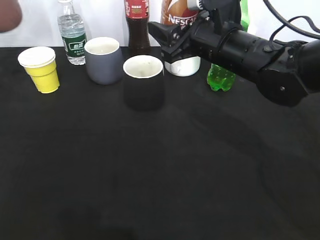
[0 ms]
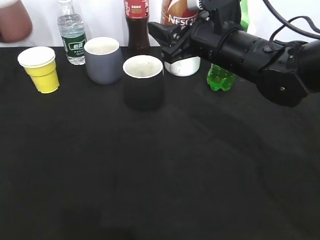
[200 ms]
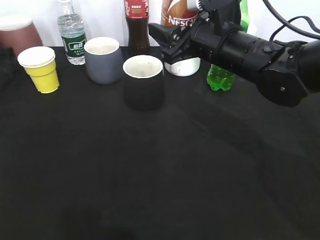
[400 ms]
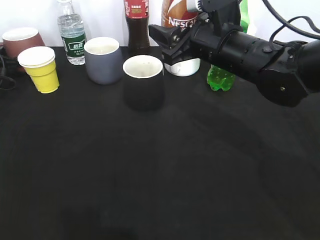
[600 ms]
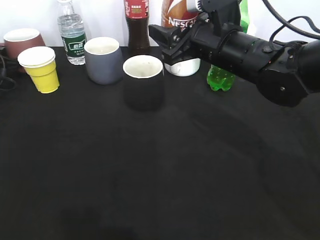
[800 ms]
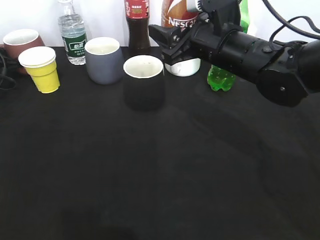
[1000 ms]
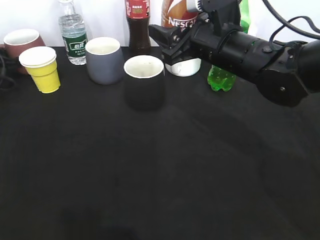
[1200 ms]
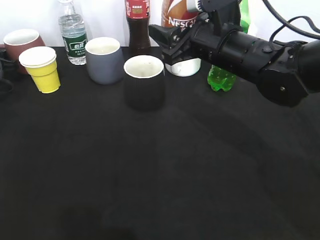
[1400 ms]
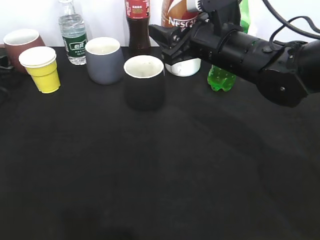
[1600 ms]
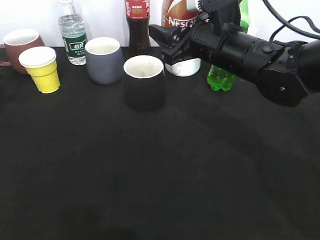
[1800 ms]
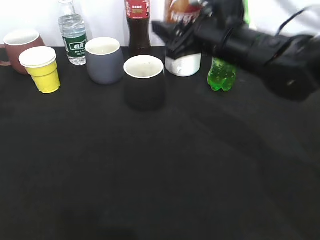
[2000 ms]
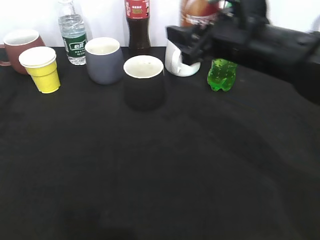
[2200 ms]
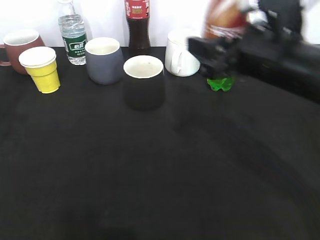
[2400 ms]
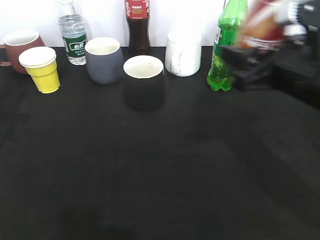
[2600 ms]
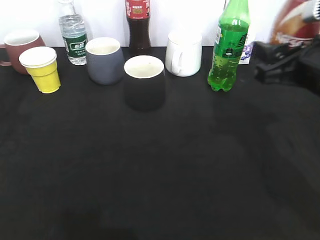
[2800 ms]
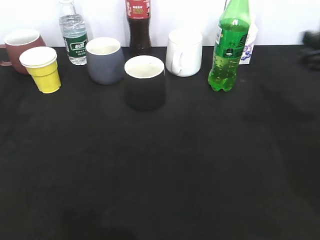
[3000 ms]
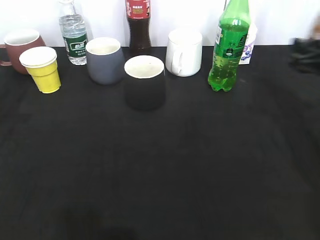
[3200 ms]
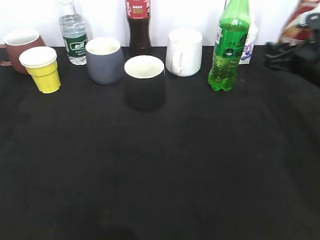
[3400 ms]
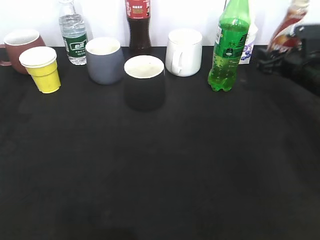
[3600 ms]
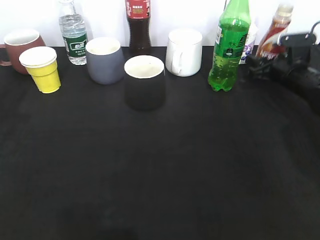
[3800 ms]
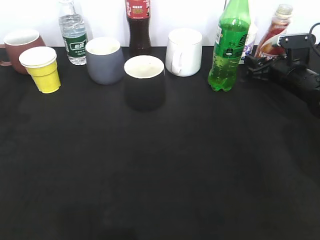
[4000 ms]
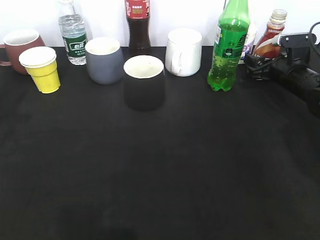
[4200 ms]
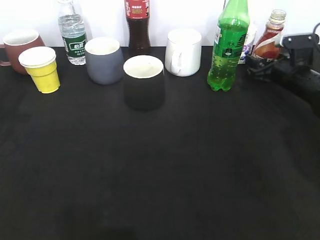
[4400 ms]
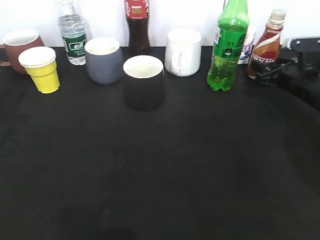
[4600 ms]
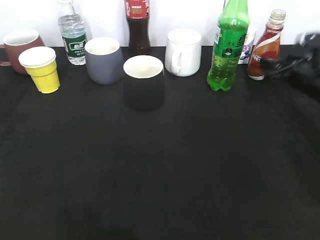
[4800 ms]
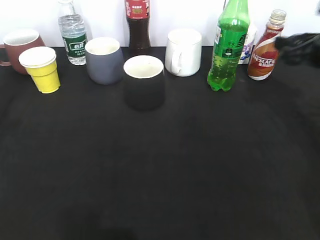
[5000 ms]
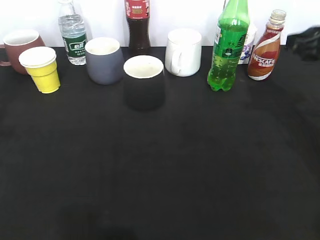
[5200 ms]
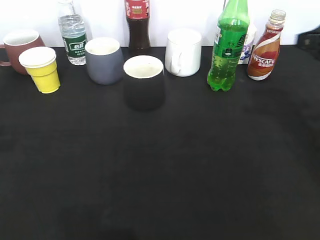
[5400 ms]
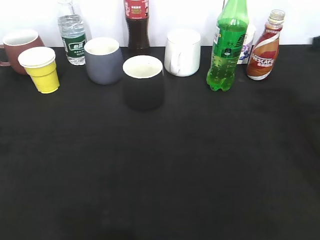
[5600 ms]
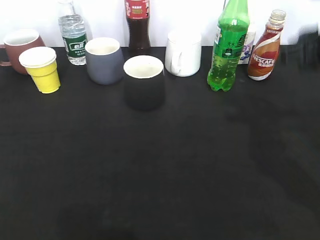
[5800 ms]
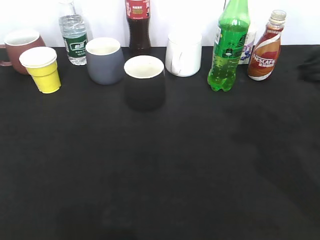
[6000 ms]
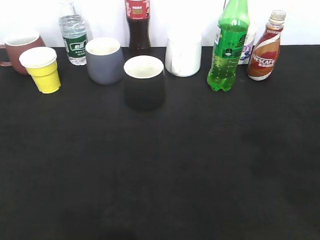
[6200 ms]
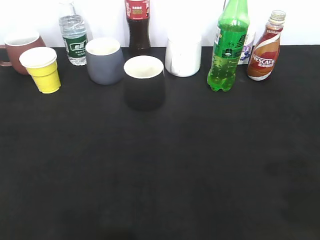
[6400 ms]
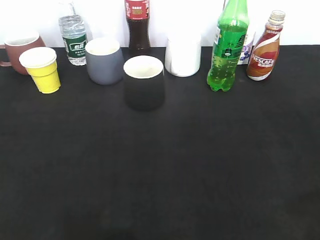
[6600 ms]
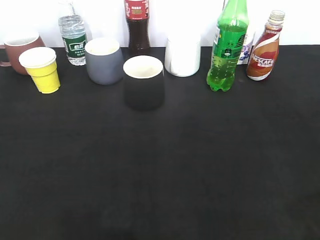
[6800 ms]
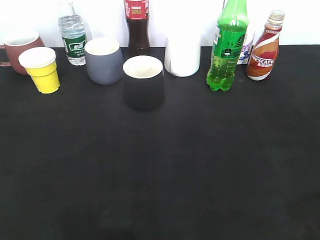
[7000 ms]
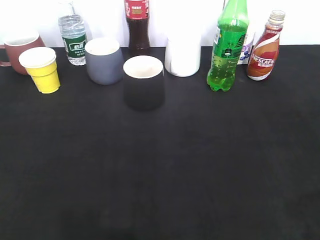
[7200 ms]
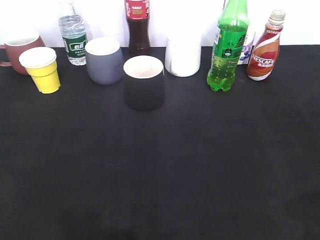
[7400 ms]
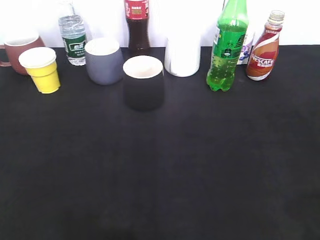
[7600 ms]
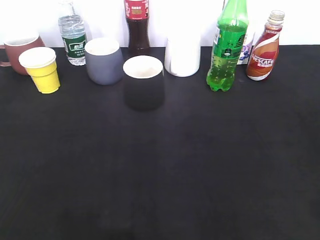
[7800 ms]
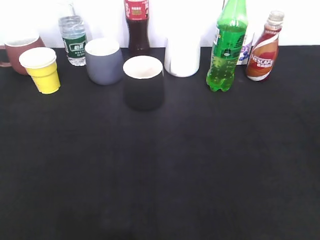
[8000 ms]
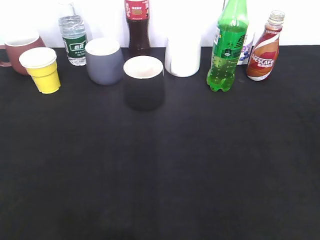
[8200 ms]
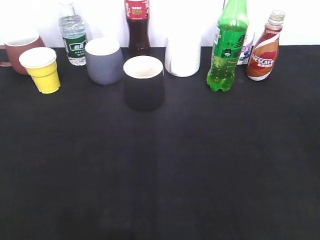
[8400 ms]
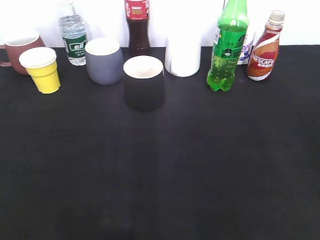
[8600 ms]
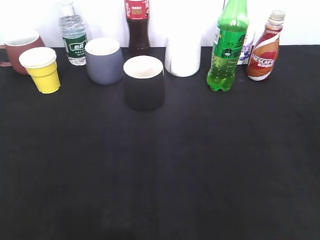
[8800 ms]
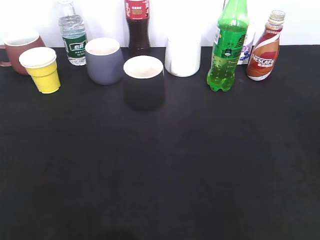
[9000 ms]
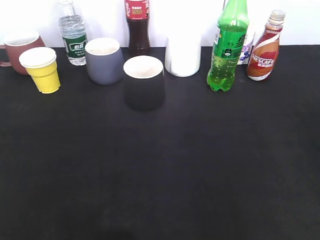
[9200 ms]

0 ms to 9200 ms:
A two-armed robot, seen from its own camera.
Step, 1400 ms to 4200 ms: Place the coffee bottle on the table with right gripper.
0 ms to 1600 ms: The left gripper travels downward by roughly 10 cm, and opens up.
1600 ms to 3000 ms: The right gripper travels to the right and backward by approximately 20 cm. The left gripper moves backward, upward and to the right, roughly 20 cm.
3000 ms to 4600 ms: The right gripper travels forward and downward by roughly 20 cm.
4600 ms to 6200 ms: The grippers both shift backward and upward by about 30 cm. The right gripper closes and opens again, while the left gripper opens up.
6200 ms to 7600 ms: The right gripper goes roughly 10 cm backward.

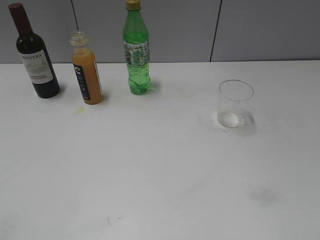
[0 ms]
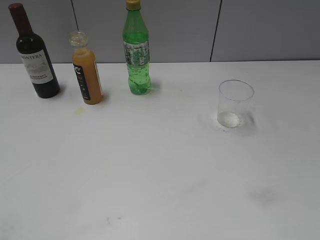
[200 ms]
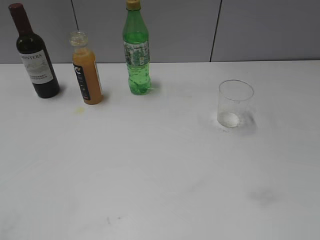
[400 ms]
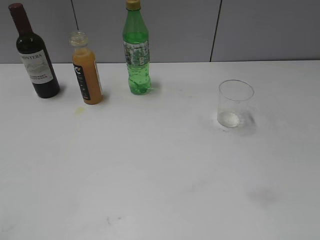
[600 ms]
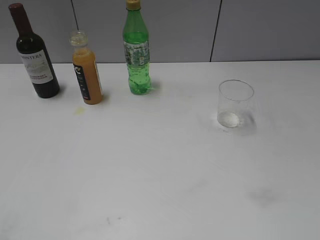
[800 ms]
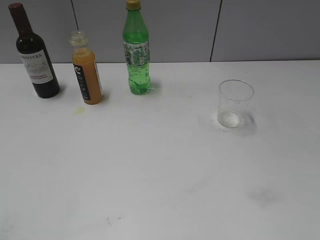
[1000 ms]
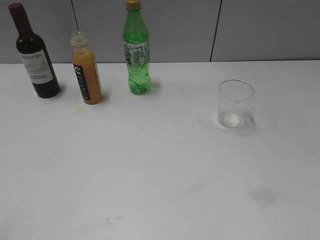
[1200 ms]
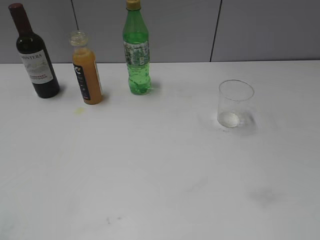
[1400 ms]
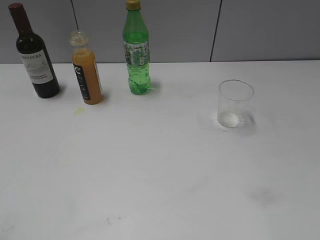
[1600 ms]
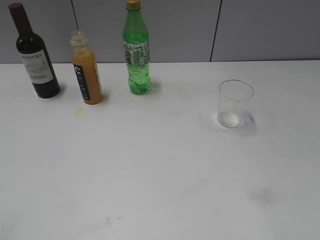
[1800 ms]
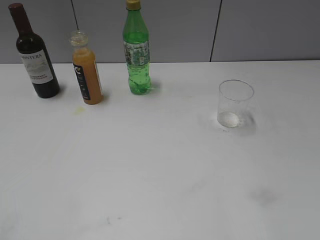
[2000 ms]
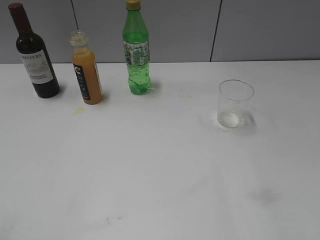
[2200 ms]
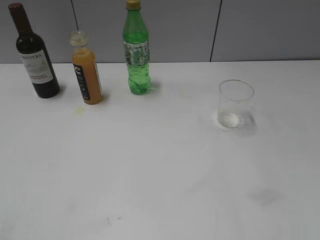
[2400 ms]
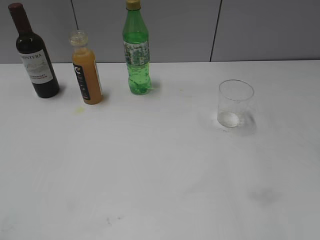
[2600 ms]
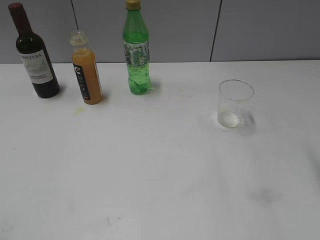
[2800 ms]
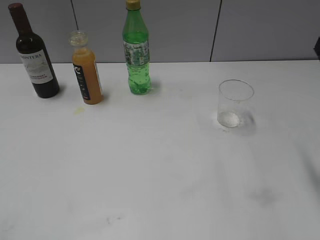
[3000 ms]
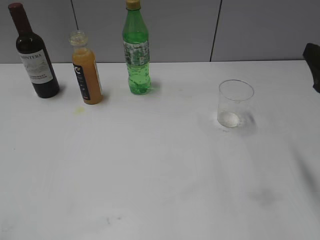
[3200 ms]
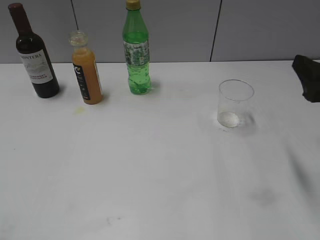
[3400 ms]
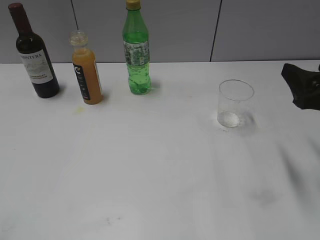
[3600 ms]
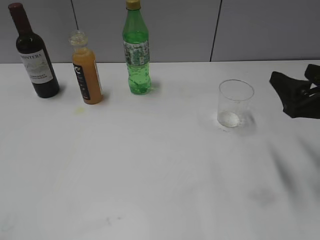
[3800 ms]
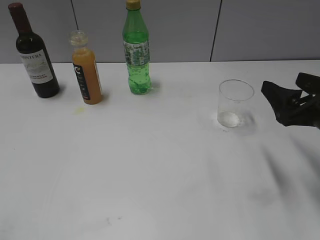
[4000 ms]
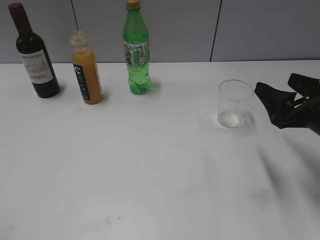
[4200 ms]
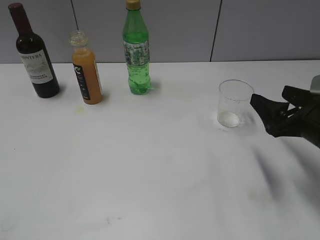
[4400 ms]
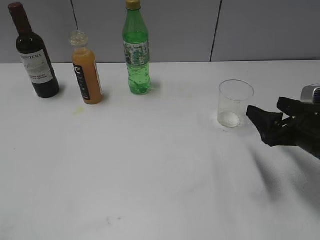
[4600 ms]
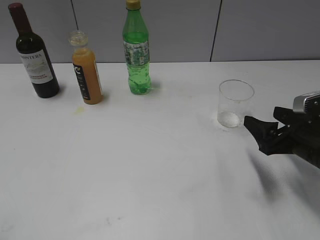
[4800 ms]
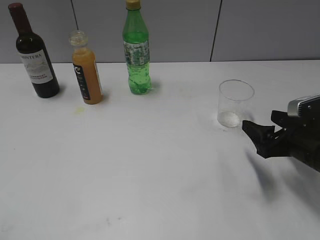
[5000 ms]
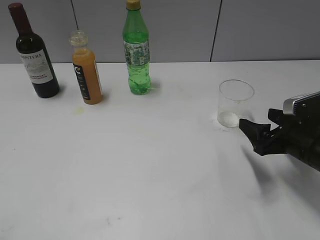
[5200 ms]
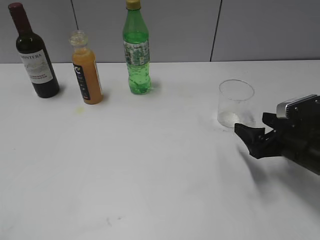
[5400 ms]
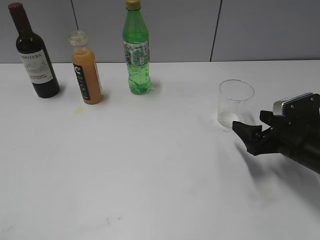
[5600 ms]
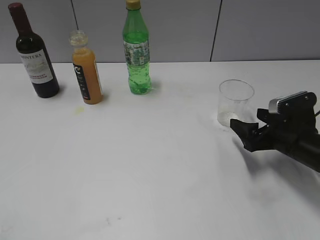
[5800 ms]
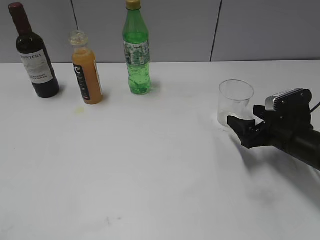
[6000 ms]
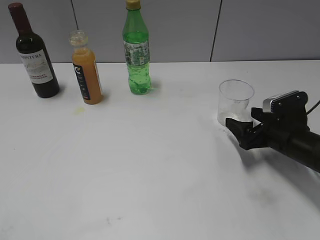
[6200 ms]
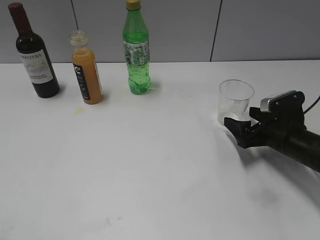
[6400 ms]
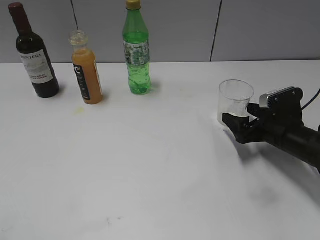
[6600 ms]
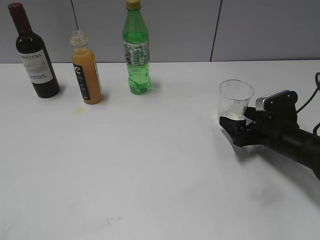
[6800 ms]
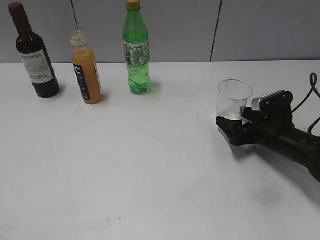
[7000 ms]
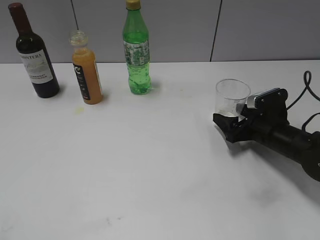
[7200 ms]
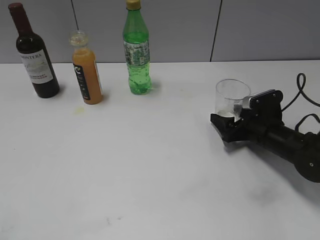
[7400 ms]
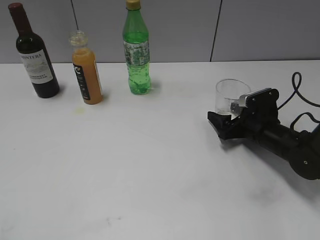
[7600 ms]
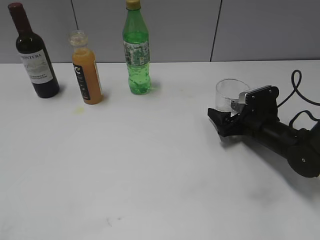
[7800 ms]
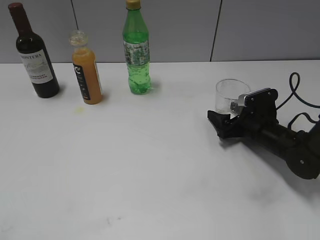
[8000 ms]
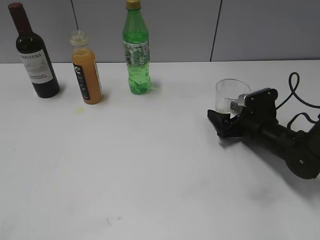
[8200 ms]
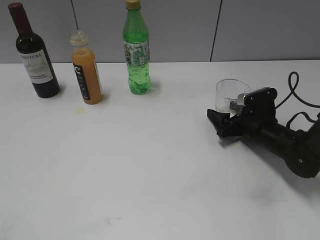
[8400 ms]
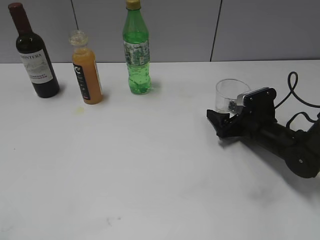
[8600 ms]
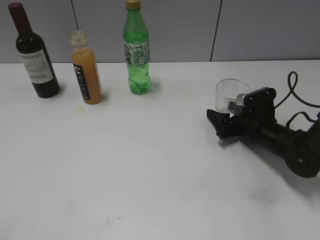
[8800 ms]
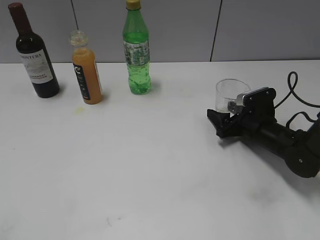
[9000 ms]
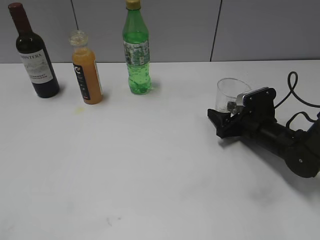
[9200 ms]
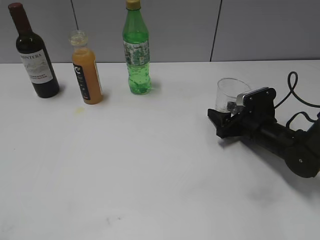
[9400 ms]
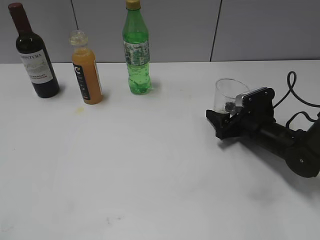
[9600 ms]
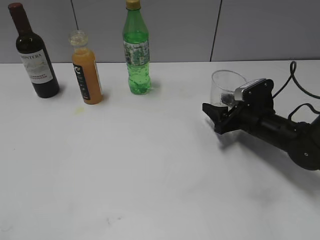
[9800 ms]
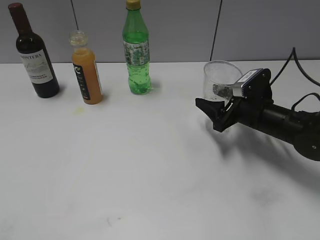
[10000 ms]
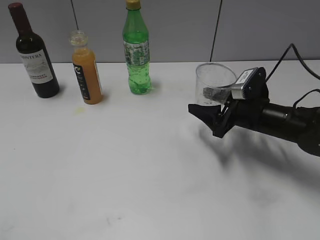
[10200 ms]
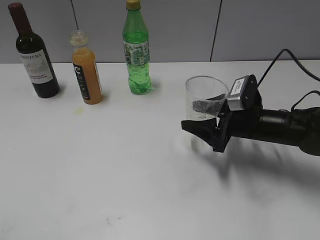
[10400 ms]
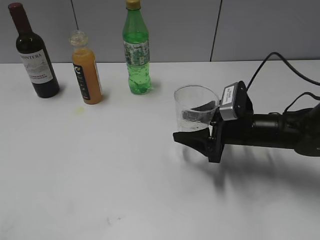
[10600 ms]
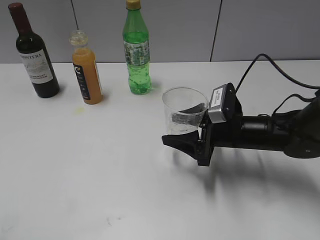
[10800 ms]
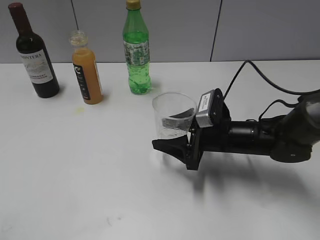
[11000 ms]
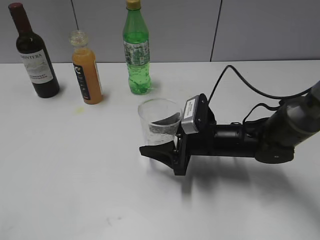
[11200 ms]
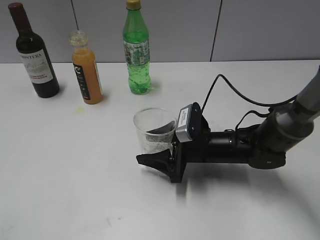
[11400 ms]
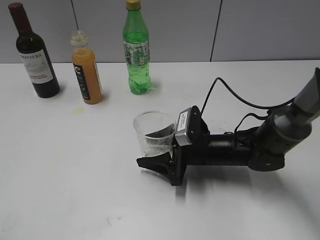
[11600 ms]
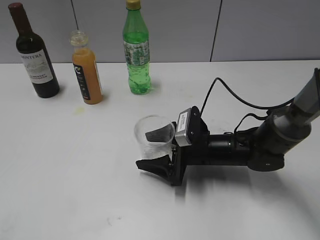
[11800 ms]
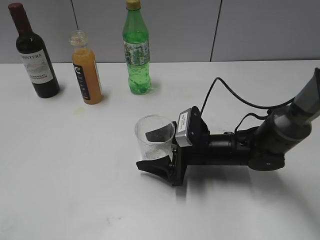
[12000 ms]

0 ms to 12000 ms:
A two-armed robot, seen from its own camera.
Step, 3000 ms to 9400 ms: Grasp the transparent cup with right gripper.
3000 ms to 4400 ms: The right gripper is displaced downward by some 10 cm.
4400 ms to 6000 ms: The right gripper heads downward and forward, covering some 10 cm.
6000 ms to 7600 ms: The right gripper moves forward, approximately 5 cm.
7600 ms to 9000 ms: The right gripper closes.
9000 ms to 10400 ms: The right gripper is displaced upward by approximately 5 cm.
10400 ms to 12000 ms: The right gripper is displaced to the left and downward by about 10 cm, and opens up.

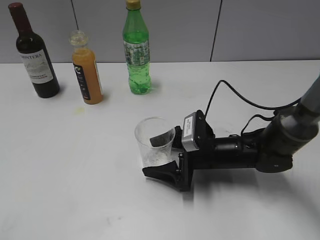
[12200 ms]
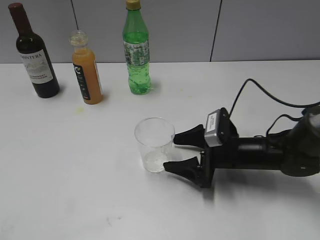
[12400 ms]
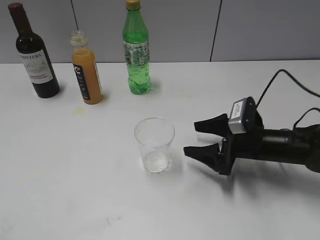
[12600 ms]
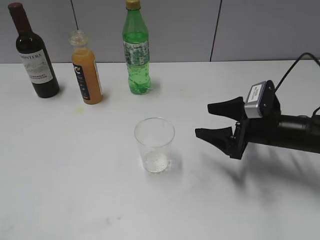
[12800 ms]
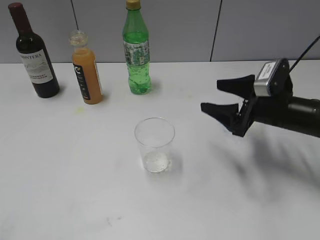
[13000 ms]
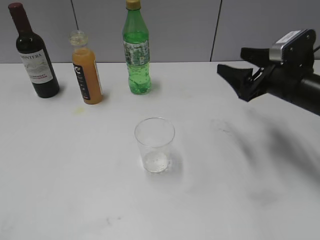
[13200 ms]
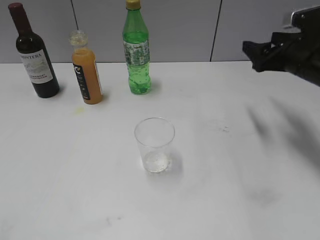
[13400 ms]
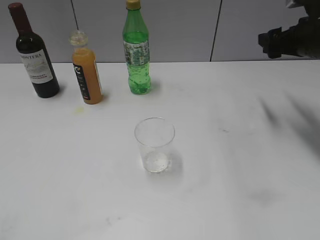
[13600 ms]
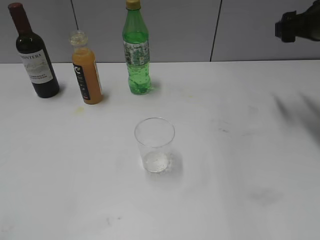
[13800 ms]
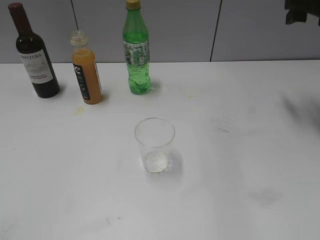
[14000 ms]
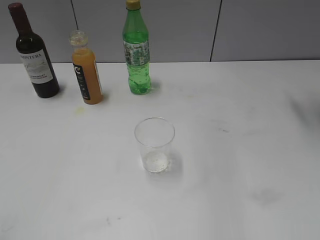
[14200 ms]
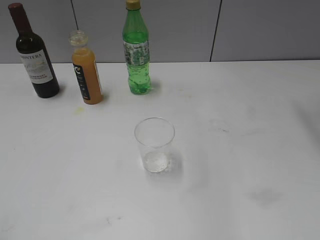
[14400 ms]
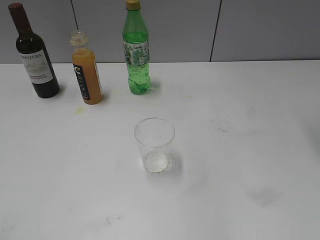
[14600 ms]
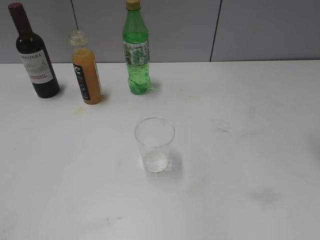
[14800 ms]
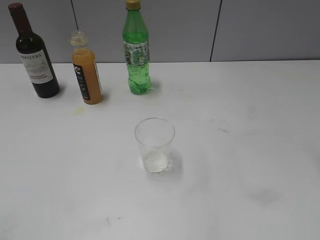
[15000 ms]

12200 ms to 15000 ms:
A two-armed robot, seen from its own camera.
12200 ms to 13600 ms: The right gripper is displaced upward, to the right and forward by some 25 cm.
13600 ms to 15000 ms: The right gripper travels upward and backward by roughly 25 cm.
